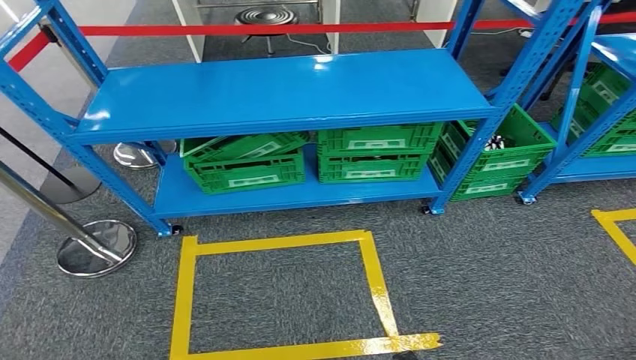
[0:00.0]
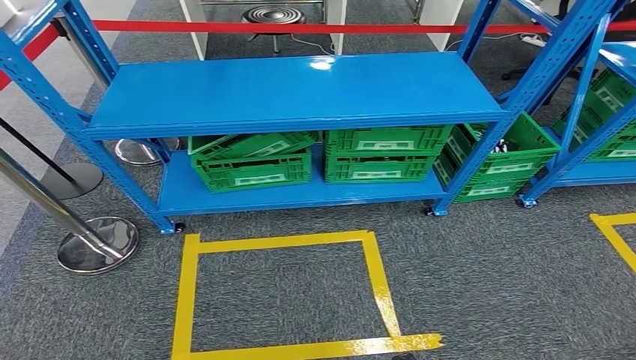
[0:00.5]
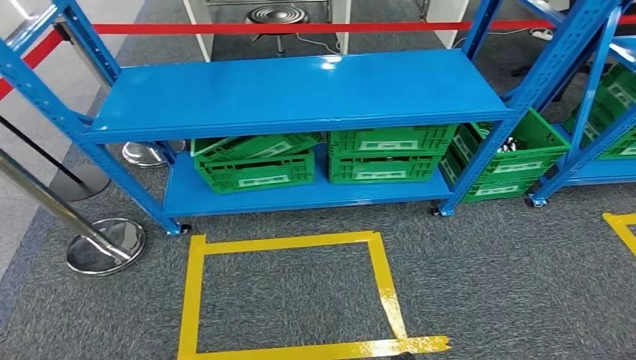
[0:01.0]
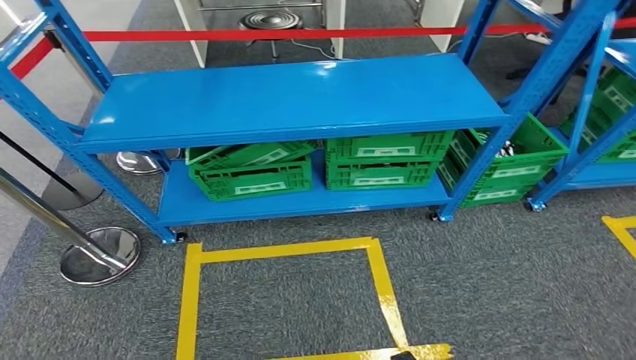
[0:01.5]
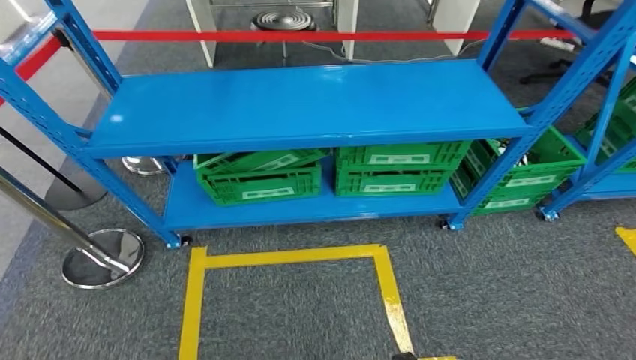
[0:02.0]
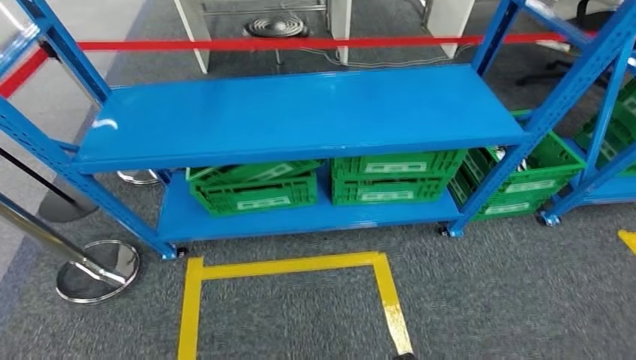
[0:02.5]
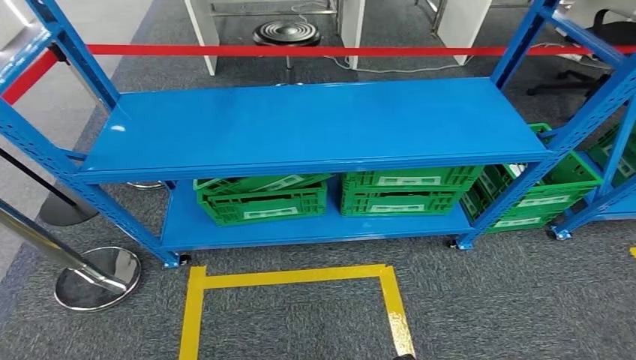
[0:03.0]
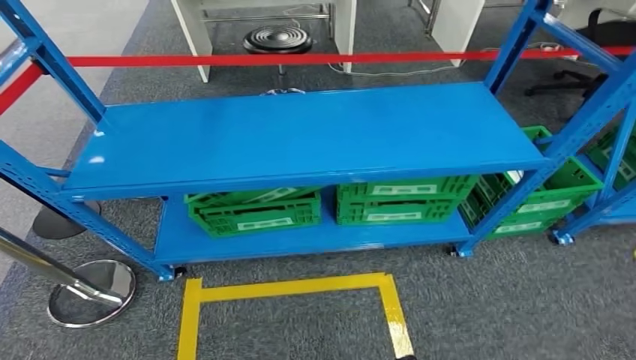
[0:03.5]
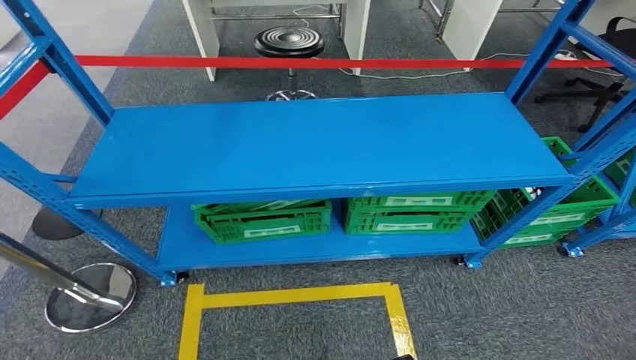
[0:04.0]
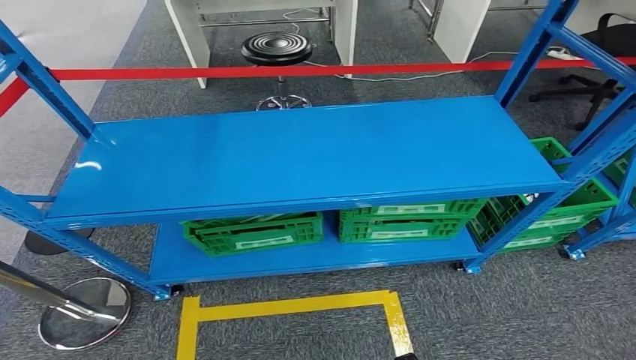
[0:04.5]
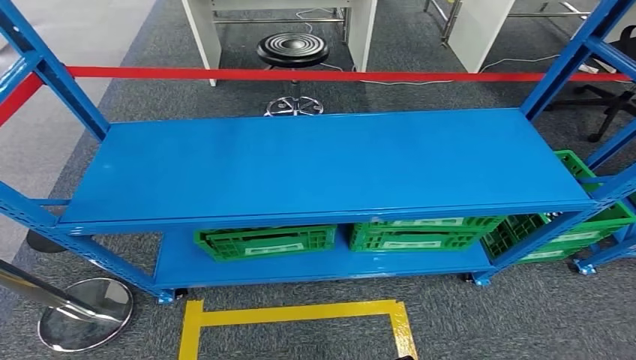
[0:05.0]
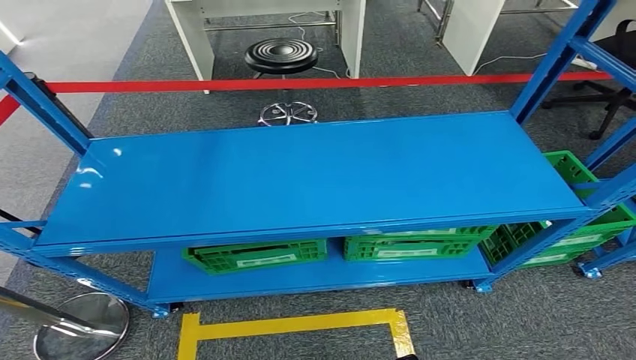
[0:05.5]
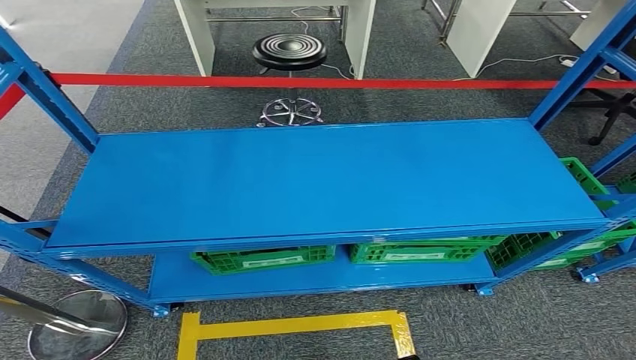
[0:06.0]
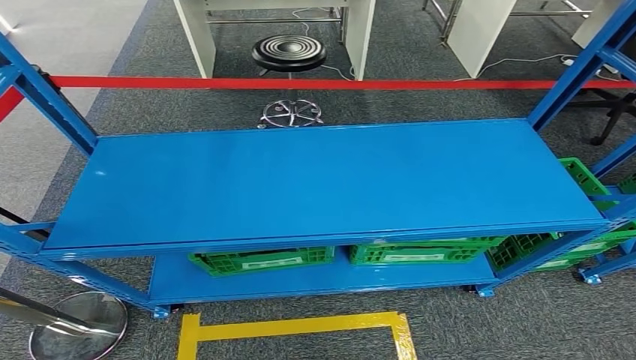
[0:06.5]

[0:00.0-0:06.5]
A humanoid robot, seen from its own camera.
Step, 0:00.0 to 0:06.0: Move to the initial position of the workbench.
